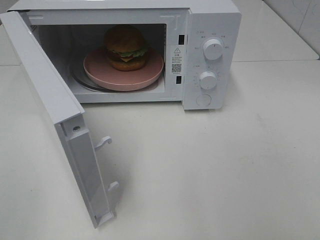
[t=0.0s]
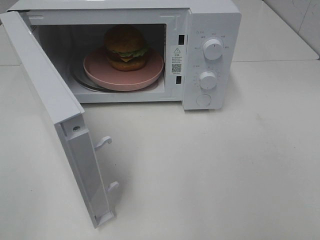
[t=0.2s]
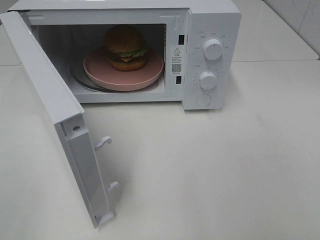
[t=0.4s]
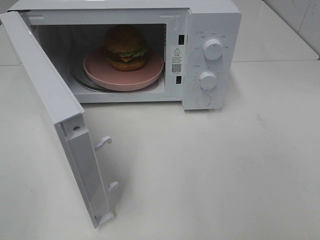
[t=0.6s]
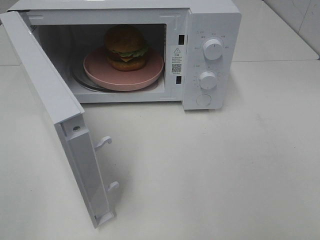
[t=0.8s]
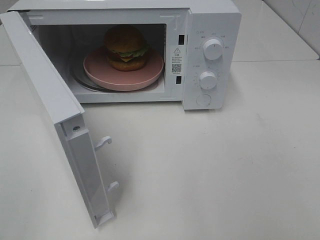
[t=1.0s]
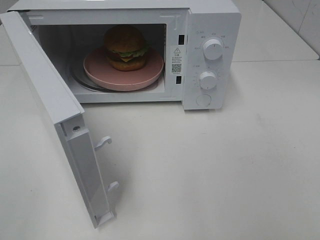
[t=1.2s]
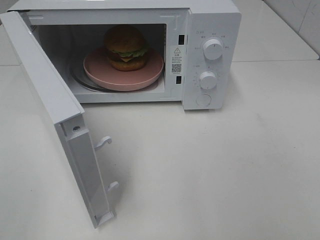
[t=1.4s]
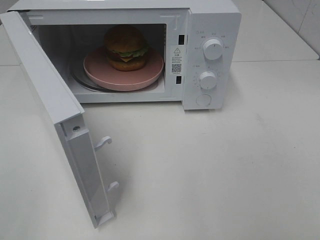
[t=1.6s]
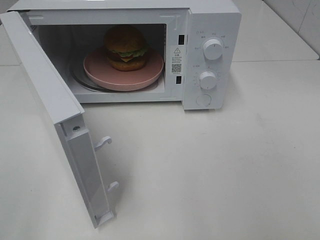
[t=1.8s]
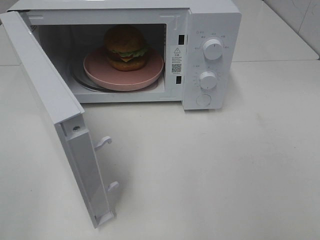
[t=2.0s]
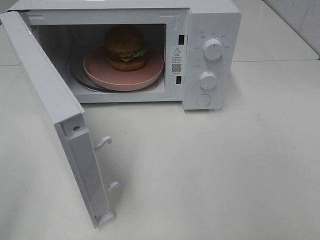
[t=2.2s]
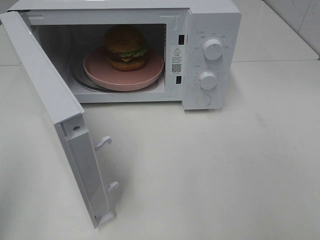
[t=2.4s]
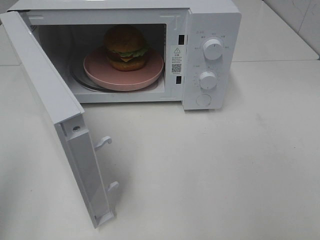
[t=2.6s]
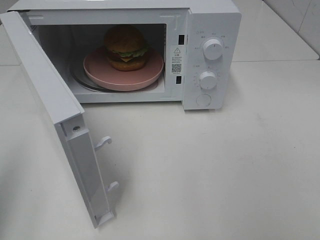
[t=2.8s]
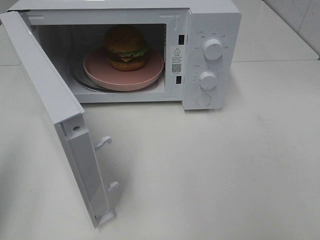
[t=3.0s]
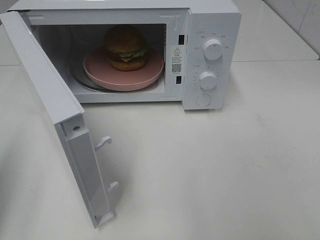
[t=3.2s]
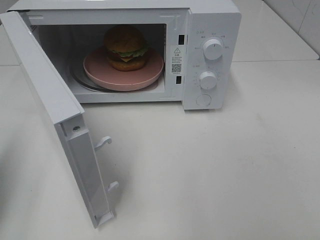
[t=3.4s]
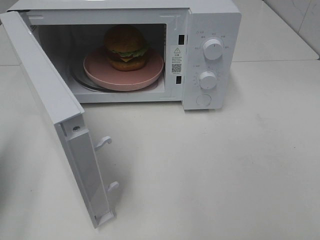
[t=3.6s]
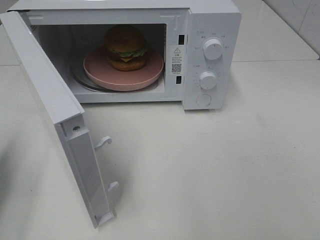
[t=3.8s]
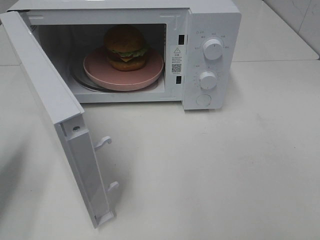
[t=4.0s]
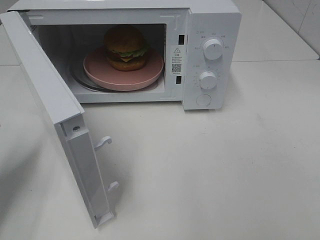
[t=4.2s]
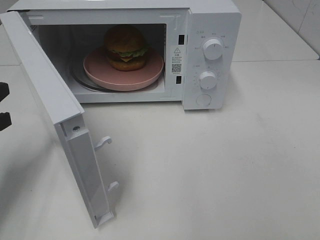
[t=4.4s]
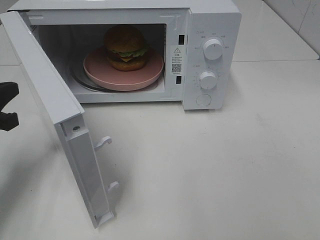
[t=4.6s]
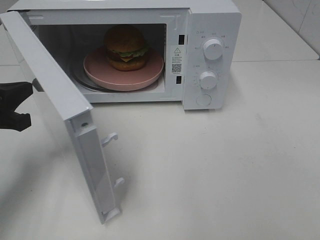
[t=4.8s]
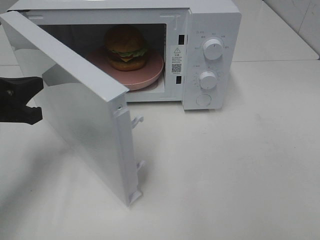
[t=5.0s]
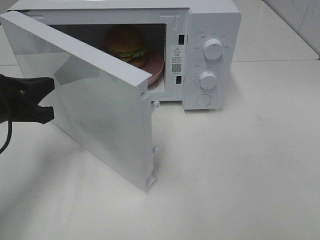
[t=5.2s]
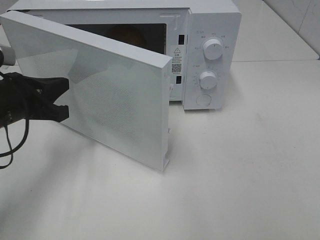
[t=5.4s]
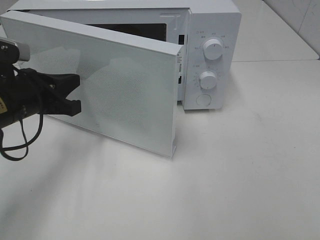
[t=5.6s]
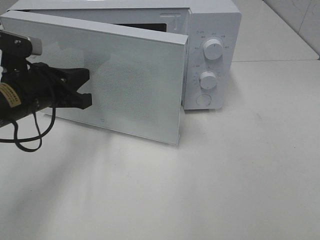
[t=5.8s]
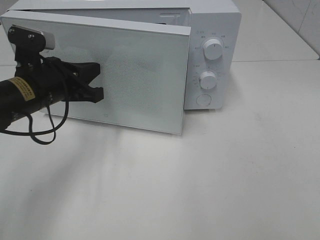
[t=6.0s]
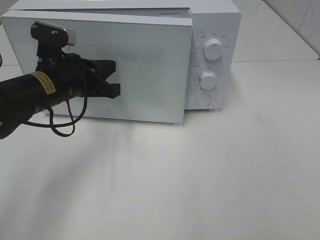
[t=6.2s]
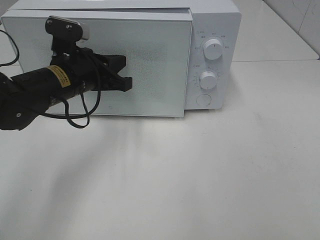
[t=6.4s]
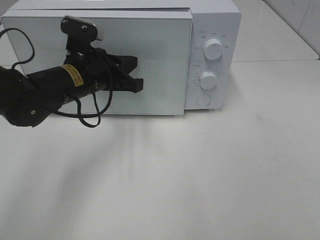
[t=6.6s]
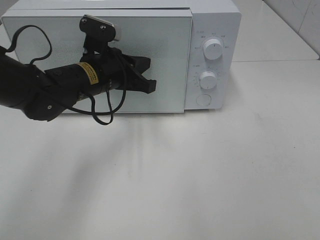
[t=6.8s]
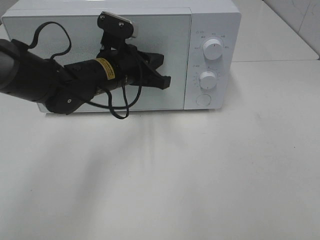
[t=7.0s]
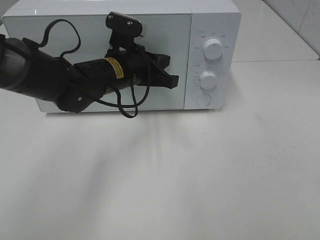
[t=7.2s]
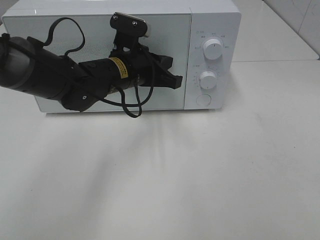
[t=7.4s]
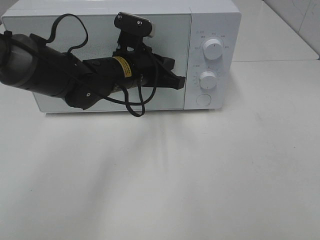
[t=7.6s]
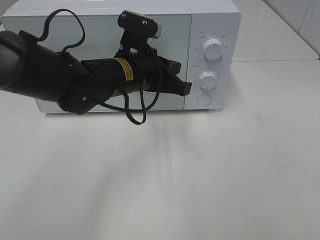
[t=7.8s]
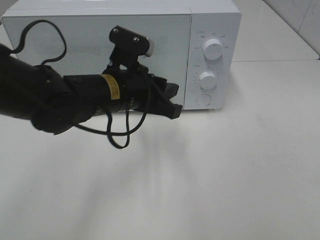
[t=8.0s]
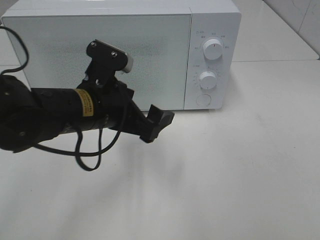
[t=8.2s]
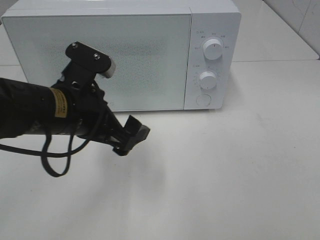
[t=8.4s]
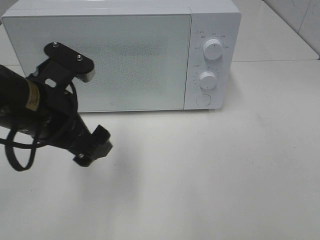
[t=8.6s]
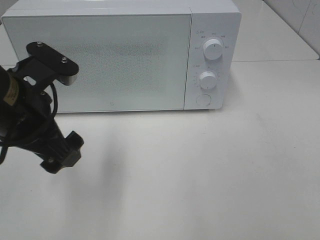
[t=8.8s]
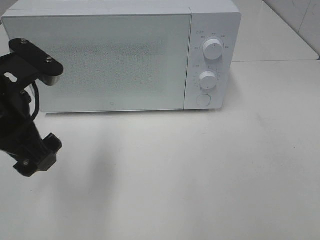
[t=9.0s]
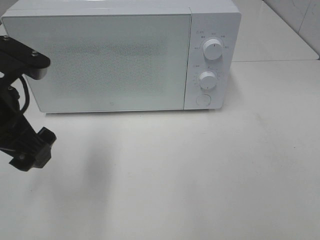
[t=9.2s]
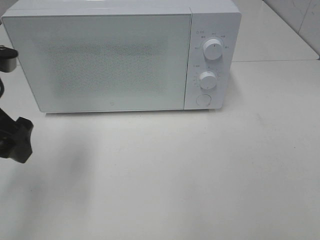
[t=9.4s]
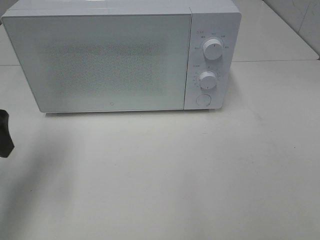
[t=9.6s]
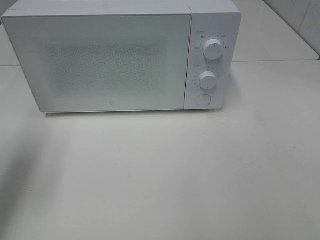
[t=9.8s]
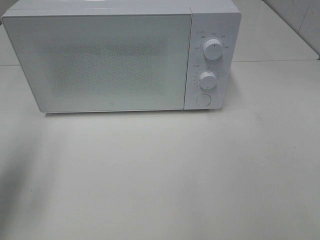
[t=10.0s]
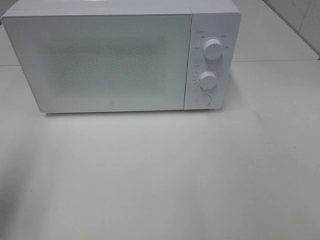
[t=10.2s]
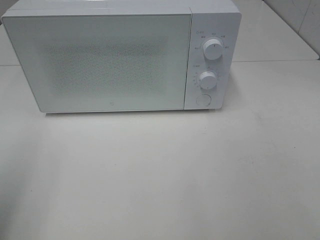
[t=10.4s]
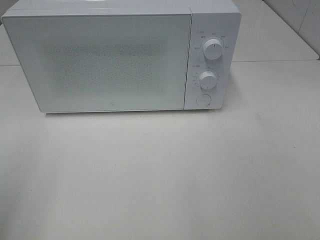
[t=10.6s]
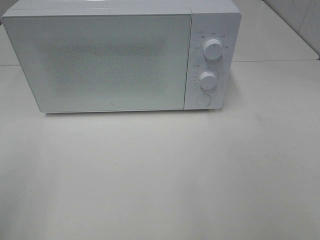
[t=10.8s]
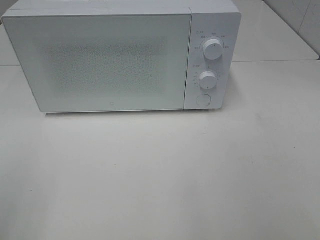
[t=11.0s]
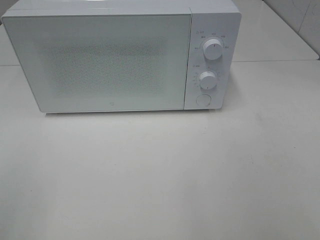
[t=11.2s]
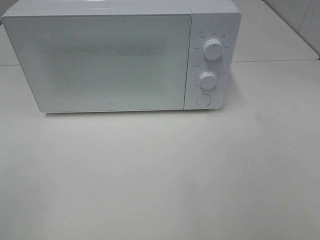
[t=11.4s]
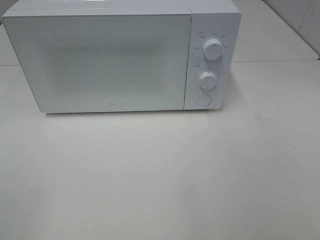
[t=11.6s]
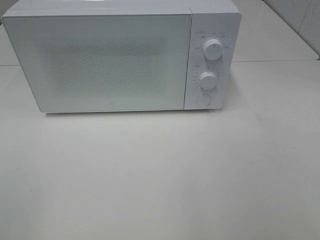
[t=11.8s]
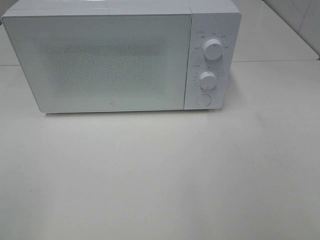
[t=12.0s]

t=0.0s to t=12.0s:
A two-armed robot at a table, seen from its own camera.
Task of the whole recording: Heat the burger.
Step, t=0.0s to t=7.6s: Left hand: close the microwave door.
t=0.0s to t=1.6s: Both grippers stay put.
t=1.6s to t=3.0s: The left gripper moves forward, roughly 10 cm, and closes up.
t=3.0s to t=4.4s: The left gripper travels forward and downward by roughly 15 cm.
t=4.4s to t=6.0s: The left gripper travels to the right and forward by roughly 15 cm.
t=6.0s to t=7.6s: The left gripper travels to the right and forward by roughly 15 cm.
t=7.6s to t=9.0s: The left gripper shifts about 20 cm backward, to the left and upward, and opens up.
t=9.0s to t=10.4s: The left gripper is displaced to the left, backward and upward by approximately 20 cm.
t=10.4s to t=12.0s: The left gripper is displaced backward by some 10 cm.

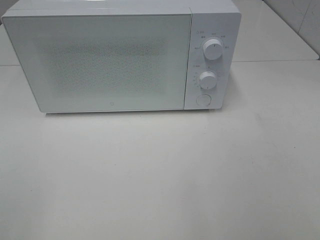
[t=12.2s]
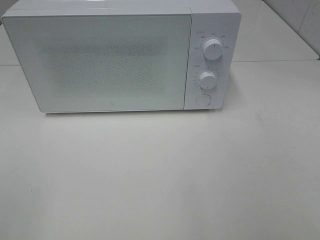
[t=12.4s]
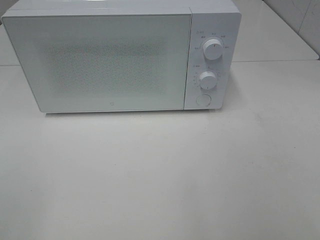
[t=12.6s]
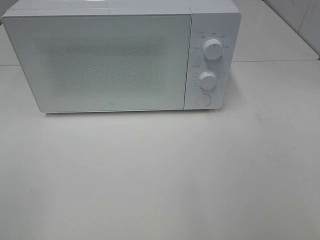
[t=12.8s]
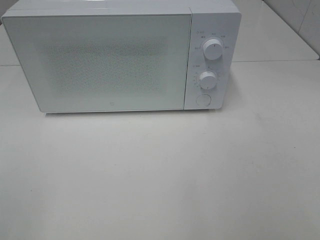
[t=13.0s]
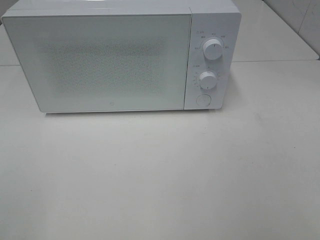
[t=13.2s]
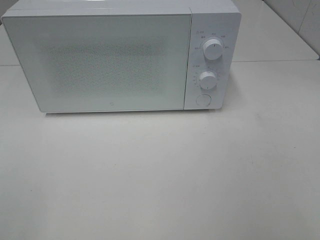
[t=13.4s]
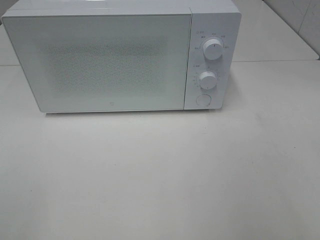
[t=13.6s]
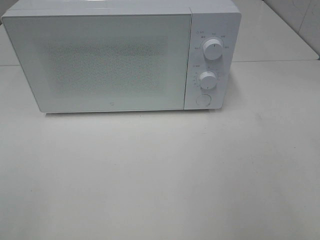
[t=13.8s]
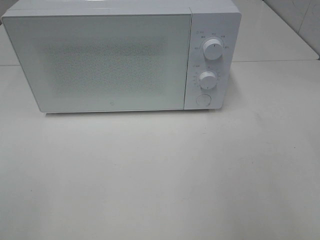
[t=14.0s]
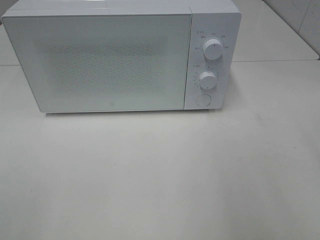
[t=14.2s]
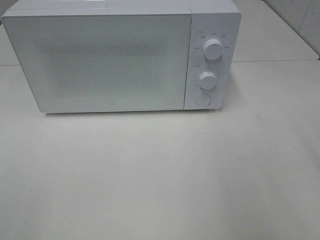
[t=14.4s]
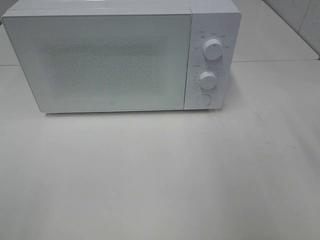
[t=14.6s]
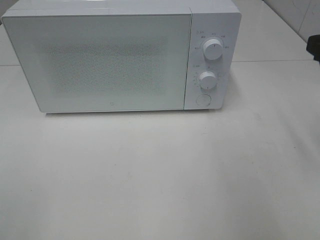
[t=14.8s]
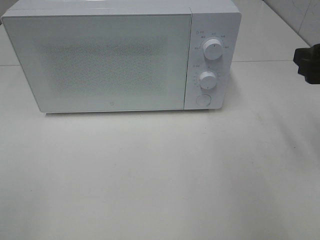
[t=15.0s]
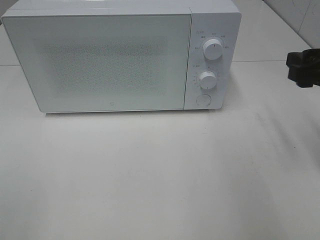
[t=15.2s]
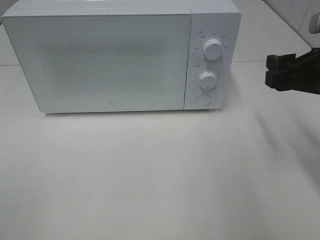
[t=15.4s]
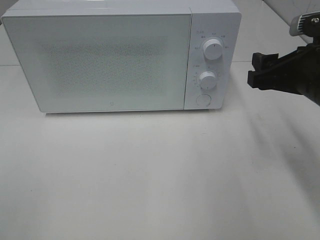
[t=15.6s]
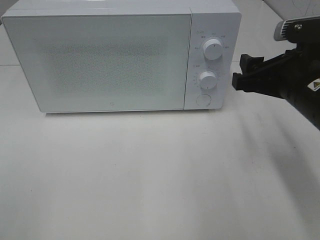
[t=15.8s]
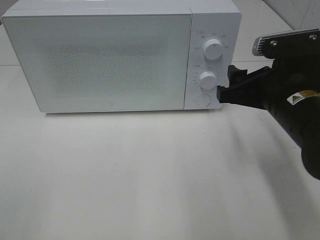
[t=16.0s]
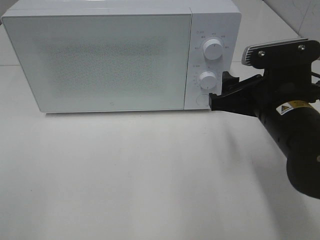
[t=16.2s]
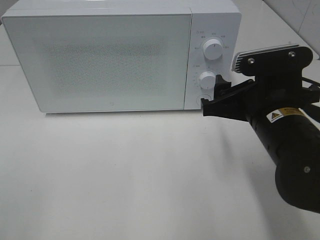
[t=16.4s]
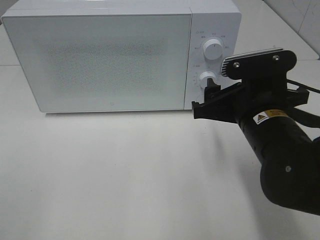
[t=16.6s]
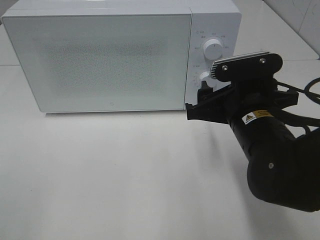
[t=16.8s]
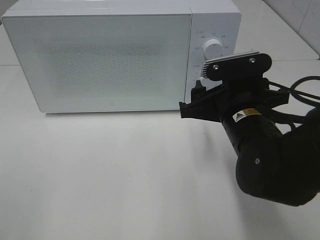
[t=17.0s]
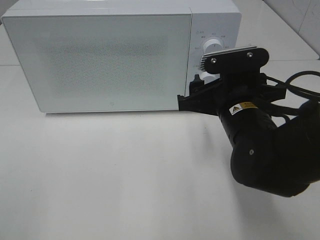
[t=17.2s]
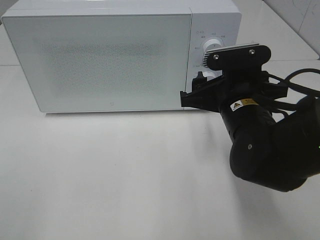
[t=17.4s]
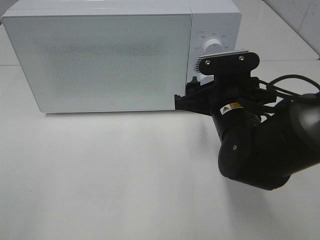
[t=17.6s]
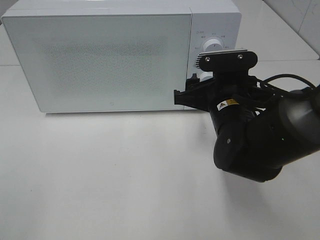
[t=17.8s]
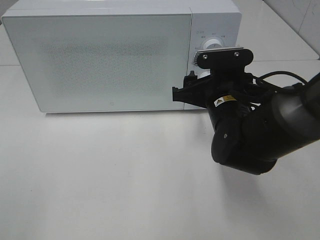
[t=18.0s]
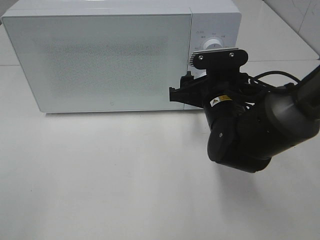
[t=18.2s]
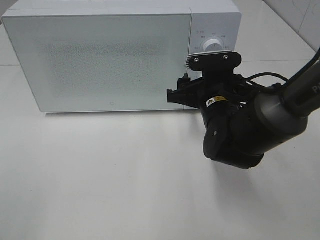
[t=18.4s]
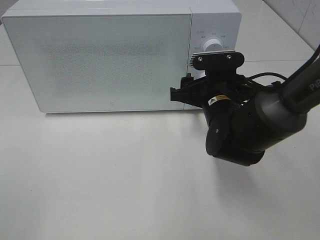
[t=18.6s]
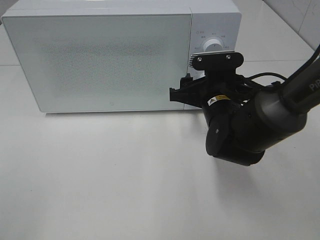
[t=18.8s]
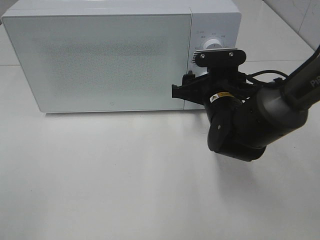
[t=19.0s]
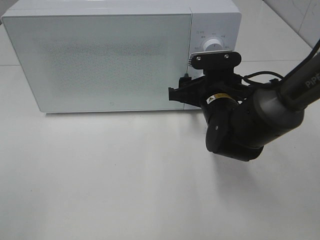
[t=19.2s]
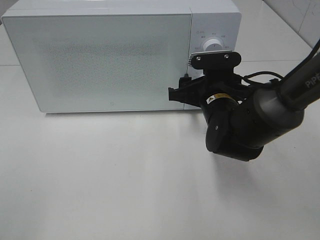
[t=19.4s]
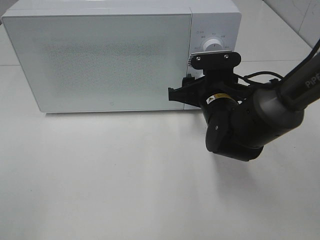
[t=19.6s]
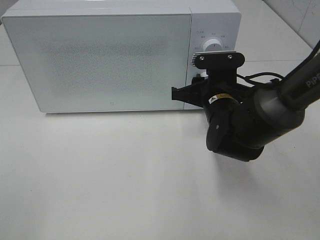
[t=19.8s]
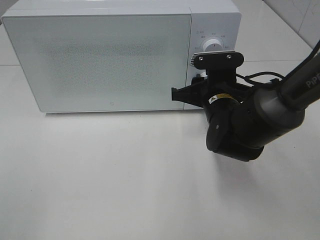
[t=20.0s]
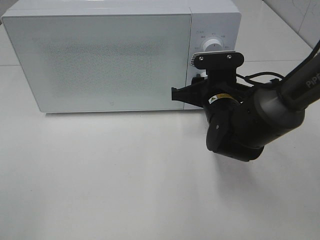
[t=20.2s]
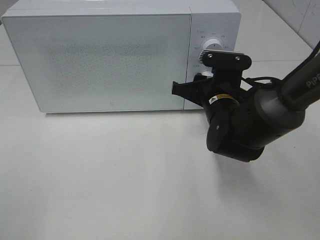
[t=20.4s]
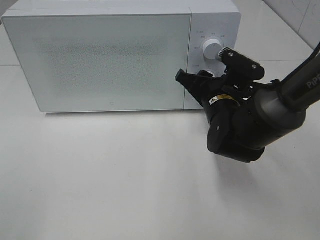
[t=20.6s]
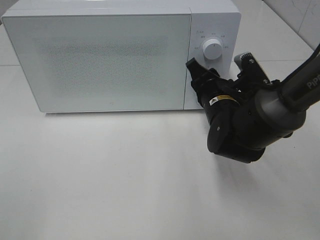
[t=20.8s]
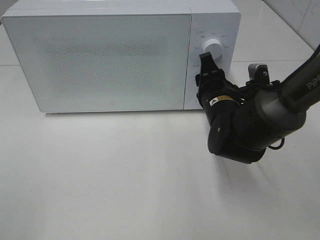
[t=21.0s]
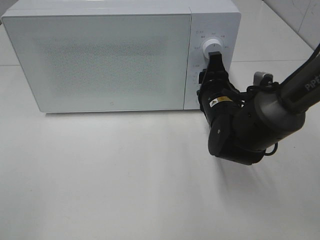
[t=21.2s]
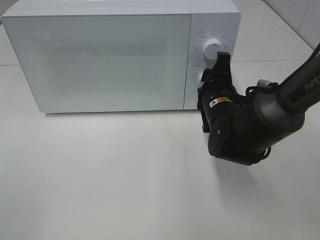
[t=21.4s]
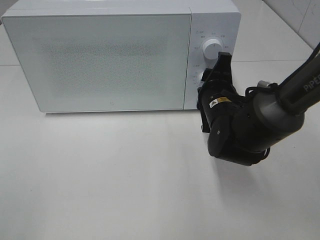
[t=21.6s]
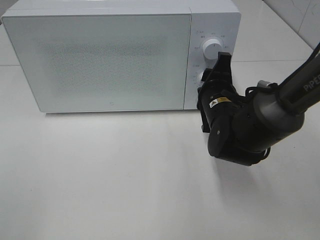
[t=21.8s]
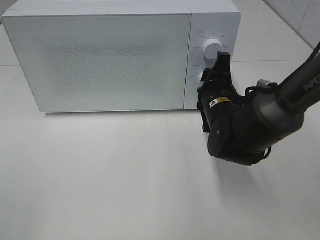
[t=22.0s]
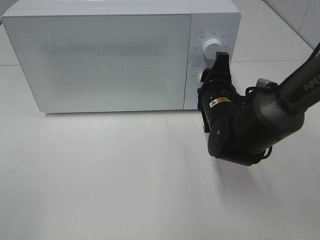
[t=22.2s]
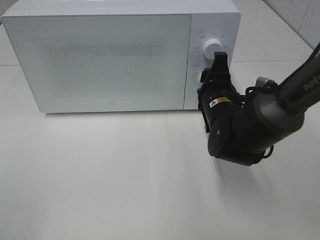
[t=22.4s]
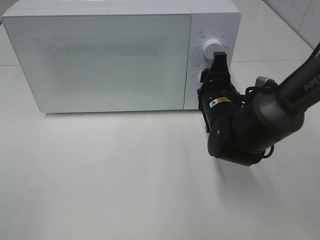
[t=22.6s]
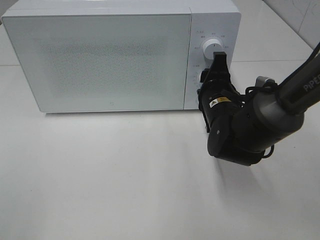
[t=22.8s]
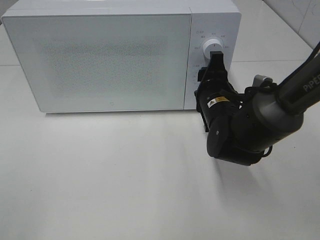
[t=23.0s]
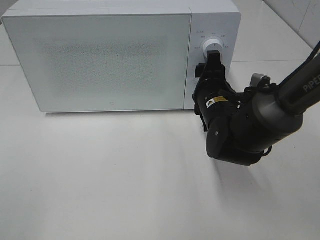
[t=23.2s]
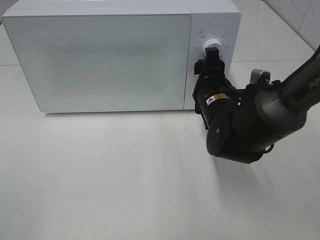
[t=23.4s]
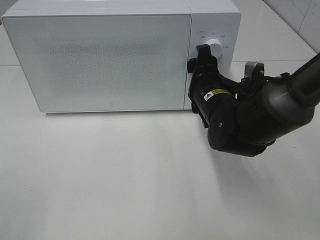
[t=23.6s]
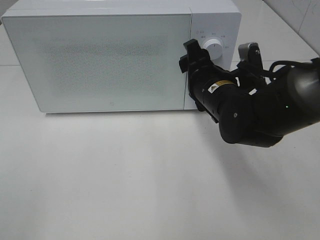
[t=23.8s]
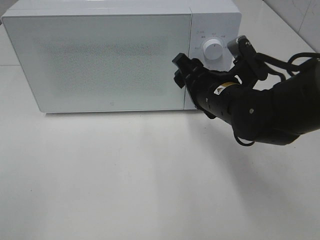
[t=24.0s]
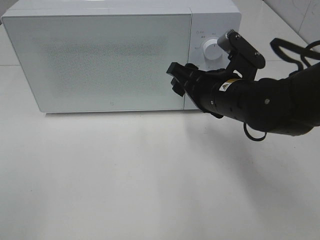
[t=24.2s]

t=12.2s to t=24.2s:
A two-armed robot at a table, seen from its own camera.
Task of the whole recording: Heat the burger.
Step, t=12.2s to t=23.0s: Right hand: twist timer button.
t=13.8s to t=15.2s: The right gripper goes about 20 cm forward and downward.
t=15.2s to t=16.6s: The right gripper goes roughly 15 cm to the left and downward.
t=16.6s to t=18.2s: The right gripper moves forward, roughly 5 cm.
t=18.2s to t=19.8s: The right gripper closes.
t=21.2s to t=22.6s: There are only small adjustments of the grippers.
t=22.6s to t=24.2s: The right gripper moves upward, roughly 5 cm.
